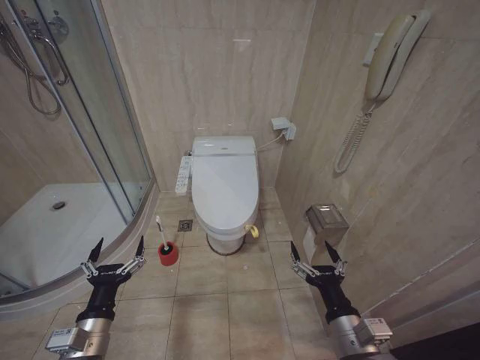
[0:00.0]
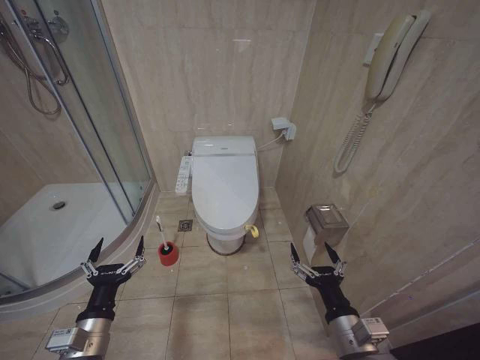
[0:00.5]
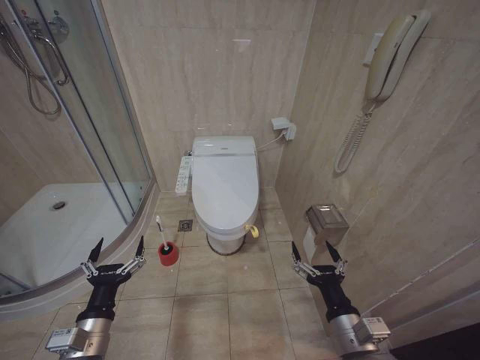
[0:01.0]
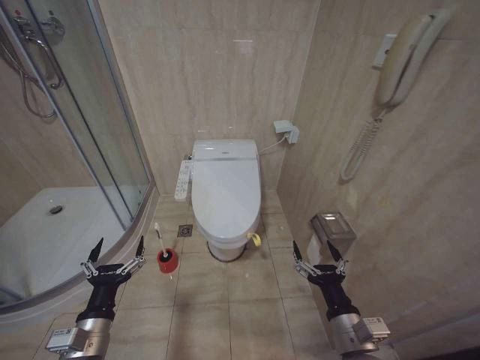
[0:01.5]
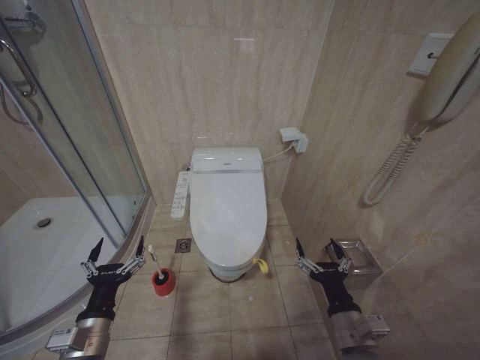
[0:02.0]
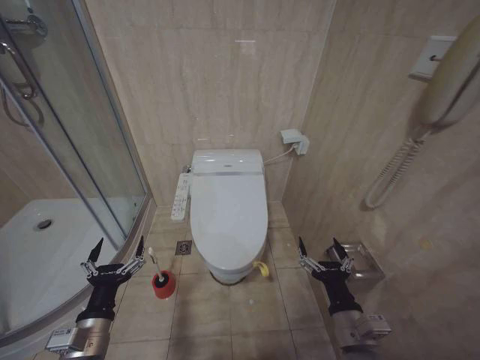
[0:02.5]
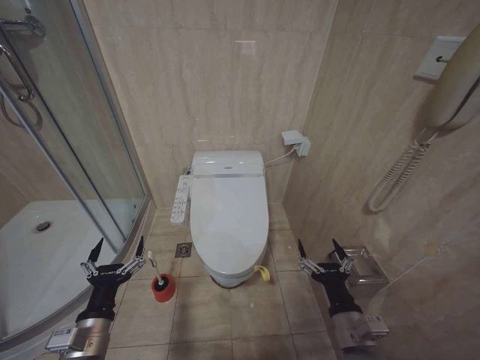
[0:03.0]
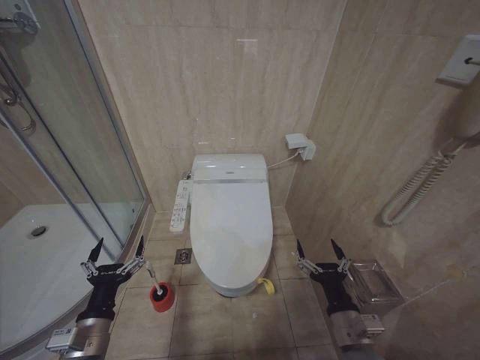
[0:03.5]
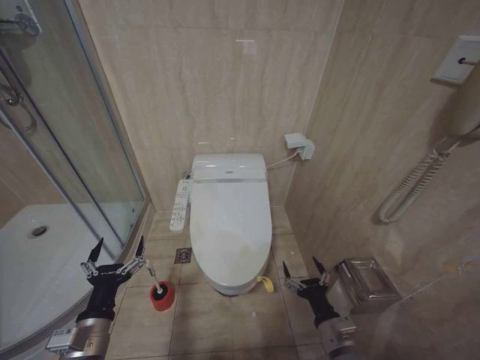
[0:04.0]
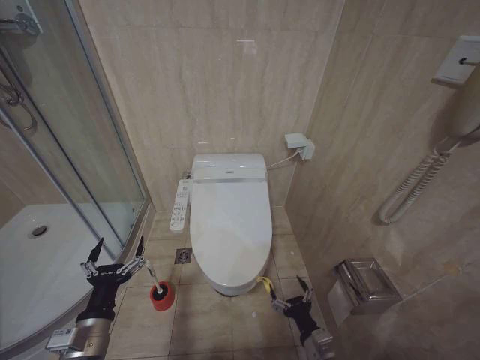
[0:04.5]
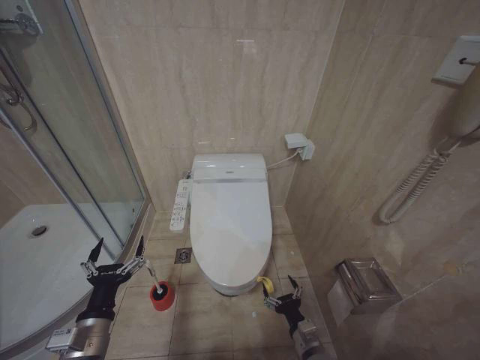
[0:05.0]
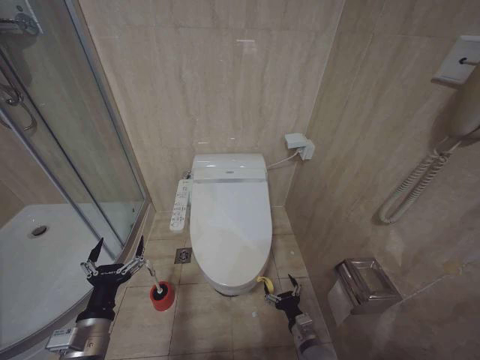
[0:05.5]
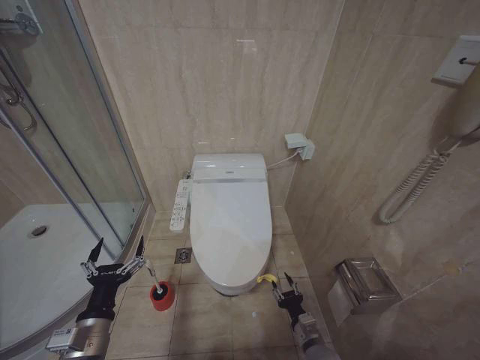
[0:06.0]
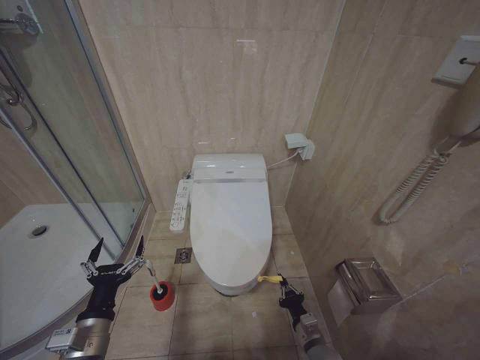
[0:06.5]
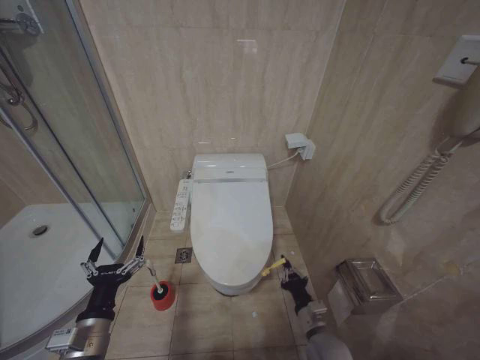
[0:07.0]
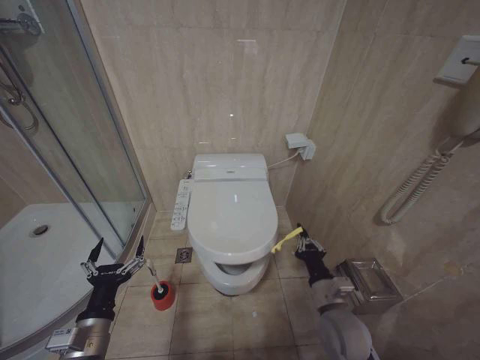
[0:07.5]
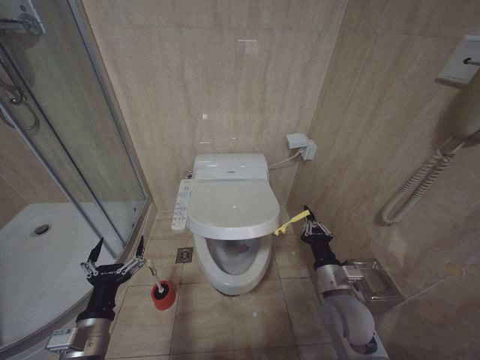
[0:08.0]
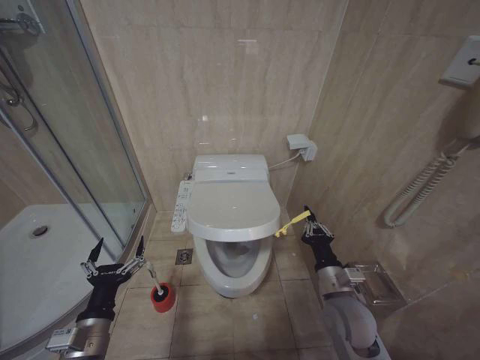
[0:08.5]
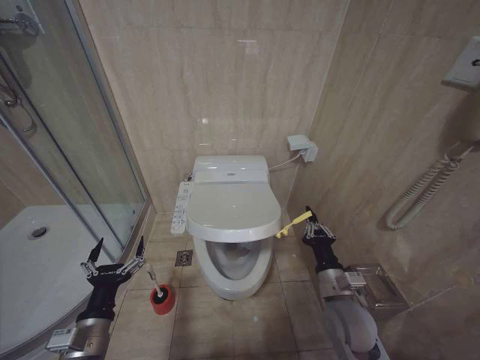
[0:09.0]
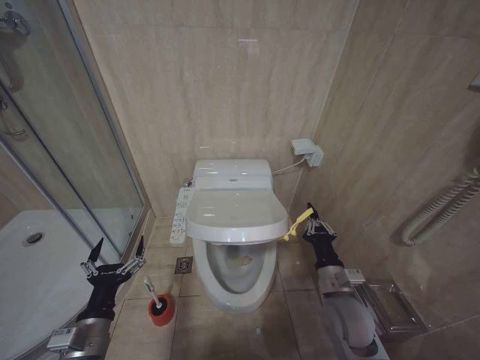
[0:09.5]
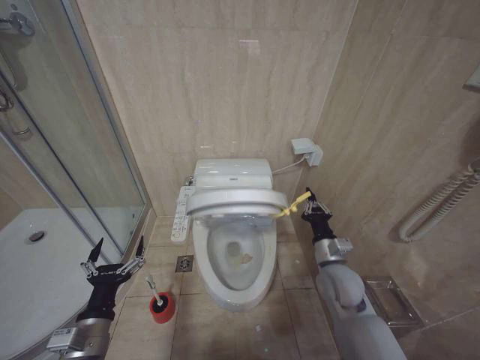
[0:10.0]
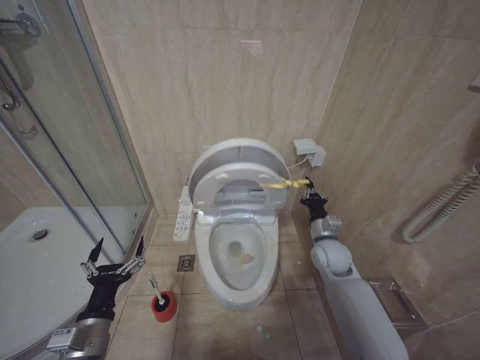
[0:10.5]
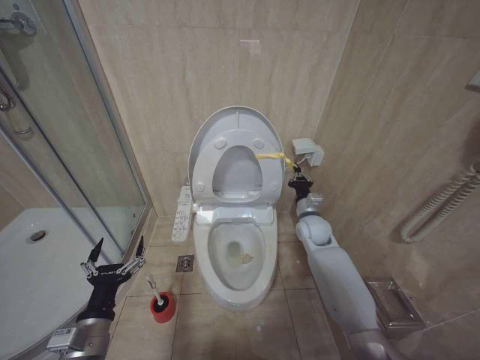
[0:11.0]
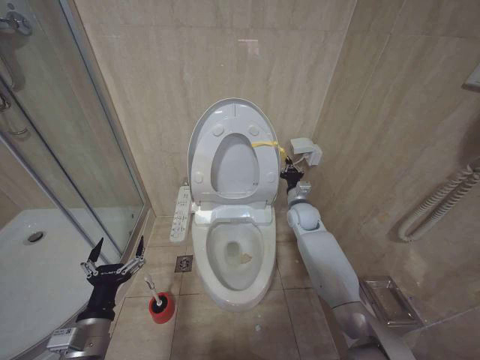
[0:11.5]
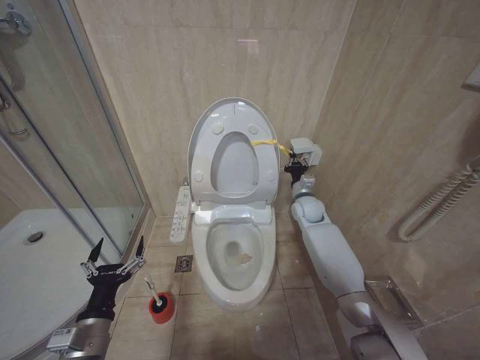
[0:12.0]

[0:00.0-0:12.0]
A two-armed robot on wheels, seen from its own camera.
Task of the whole recording: Open the toilet lid, clean the toilet bowl with a toilet brush, close the toilet lid, and flush.
2.0 to 4.0 s: The right gripper travels downward by some 5 cm.
4.0 to 6.0 s: The right gripper is displaced downward by about 15 cm.
6.0 to 8.0 s: The right gripper goes roughly 20 cm upward, and closes its fingers.
8.0 to 10.0 s: The right gripper ends up roughly 5 cm from where it was.
10.0 to 12.0 s: The right gripper travels forward by about 25 cm.

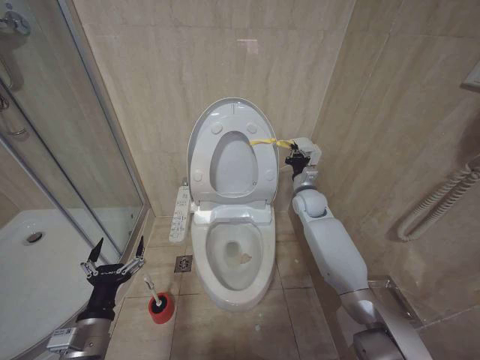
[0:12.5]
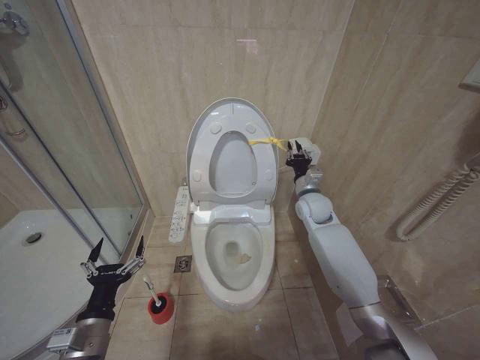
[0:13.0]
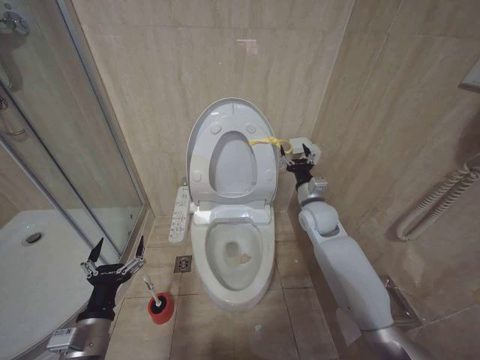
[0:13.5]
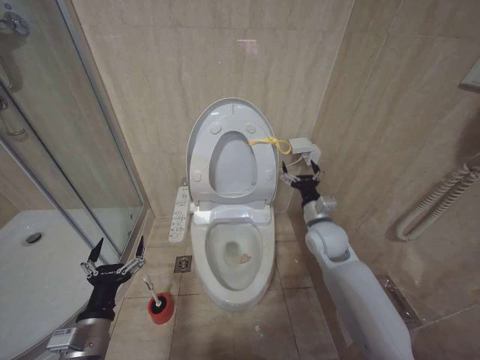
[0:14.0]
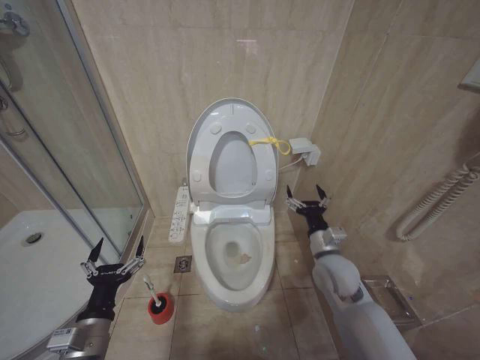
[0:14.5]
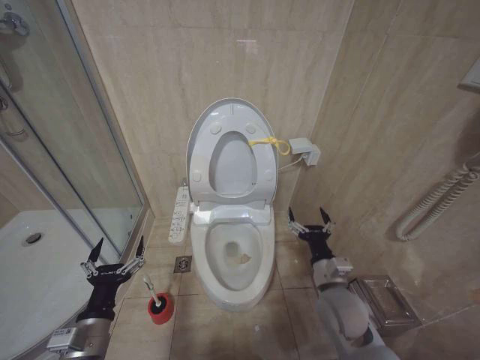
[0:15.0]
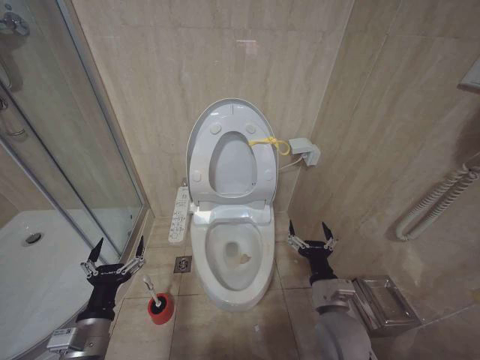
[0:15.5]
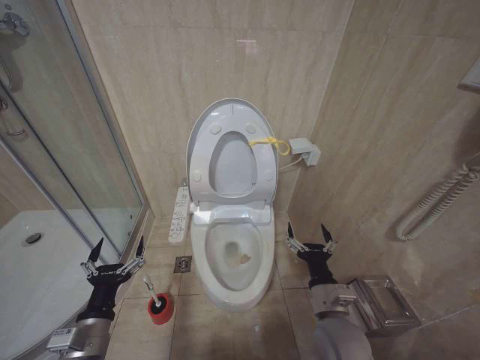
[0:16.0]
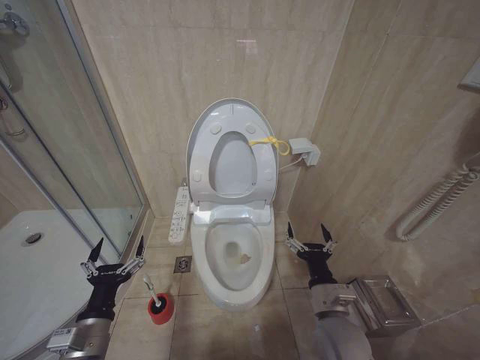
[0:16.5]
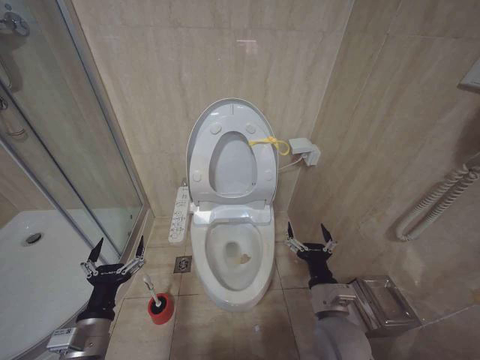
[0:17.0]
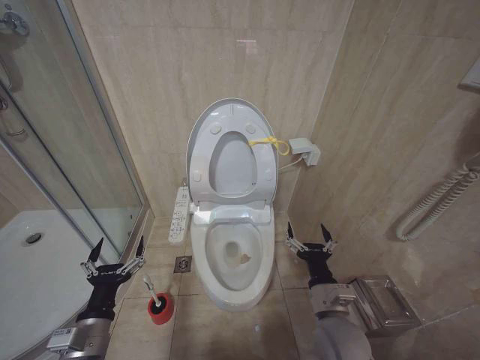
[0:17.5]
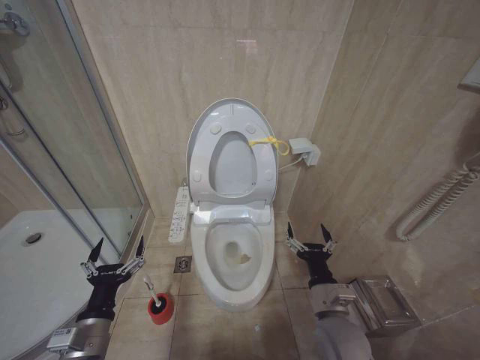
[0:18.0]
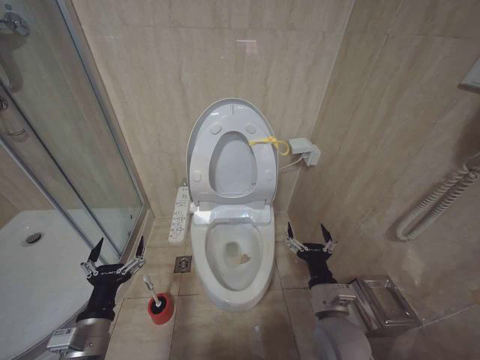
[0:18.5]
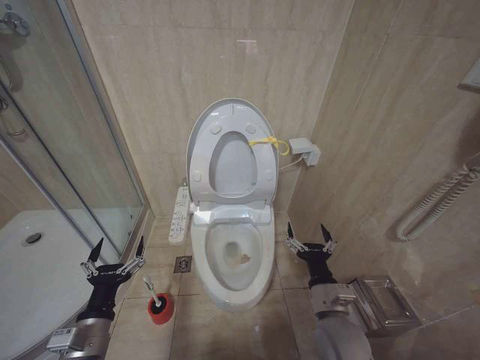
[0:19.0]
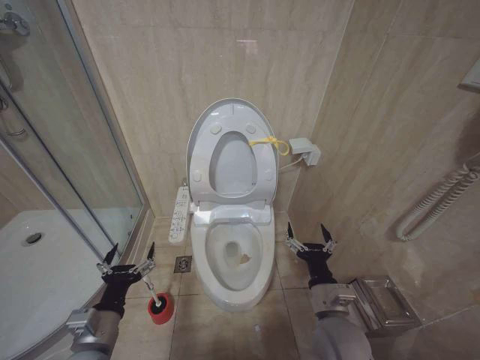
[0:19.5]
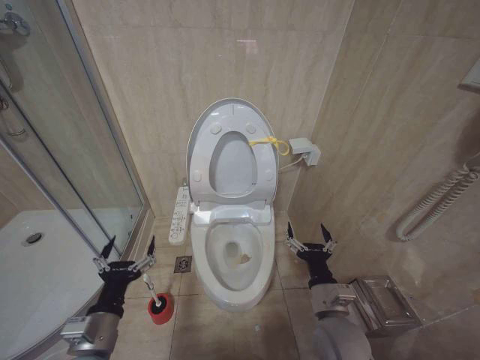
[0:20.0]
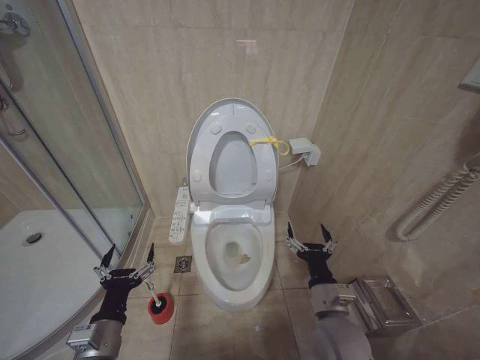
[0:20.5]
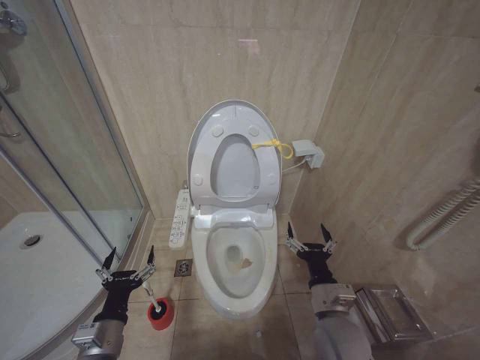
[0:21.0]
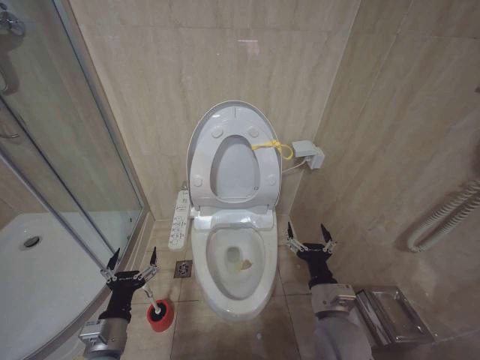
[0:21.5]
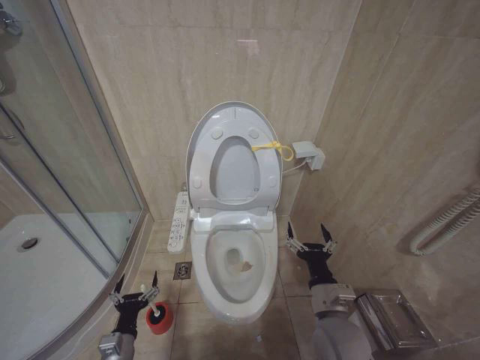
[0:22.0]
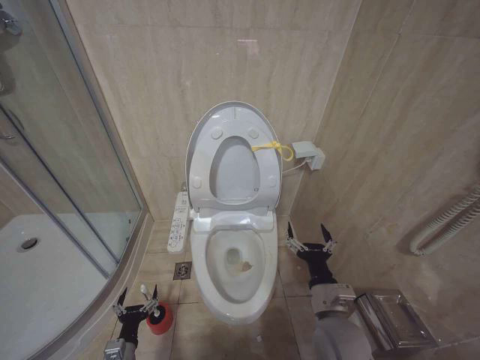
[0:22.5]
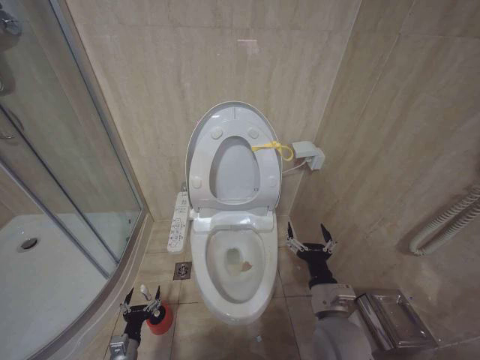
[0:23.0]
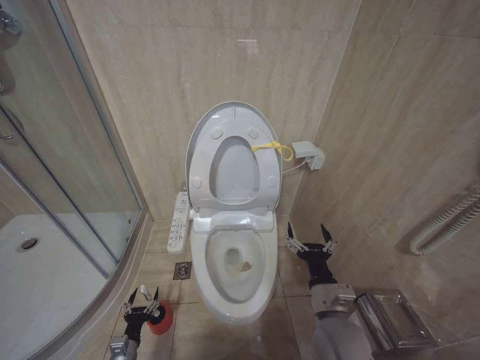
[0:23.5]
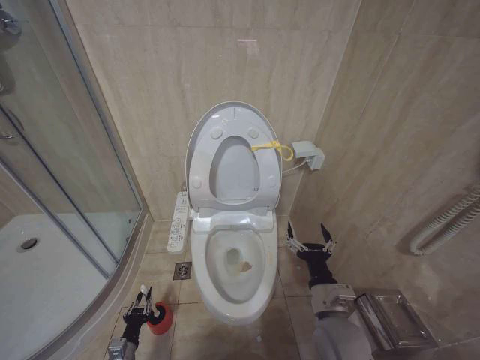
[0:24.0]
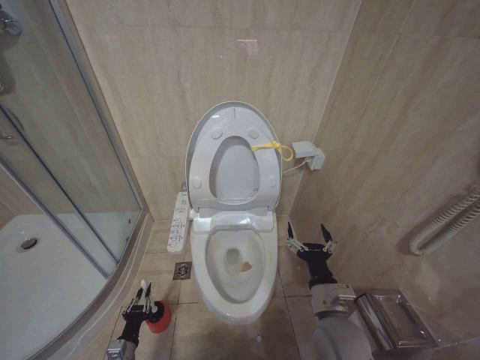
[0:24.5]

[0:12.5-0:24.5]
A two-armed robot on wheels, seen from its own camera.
Task of the whole recording: Open the toilet lid, clean the toilet bowl with a toilet brush, close the toilet lid, and flush.
12.5 to 14.5 s: The right gripper shifts about 20 cm backward, and opens.
14.5 to 16.5 s: The right gripper travels backward by about 15 cm.
16.5 to 18.5 s: Both grippers stay put.
18.5 to 20.5 s: The grippers make only small movements.
20.5 to 22.5 s: The left gripper heads downward, covering approximately 20 cm.

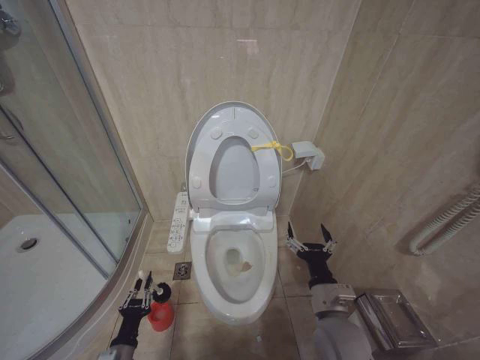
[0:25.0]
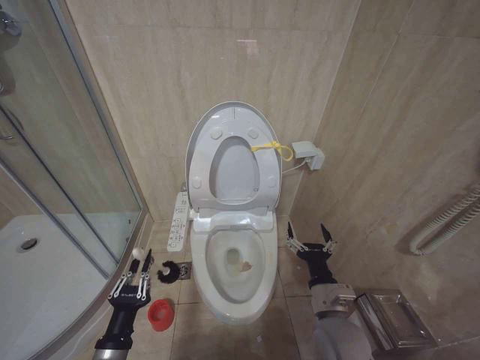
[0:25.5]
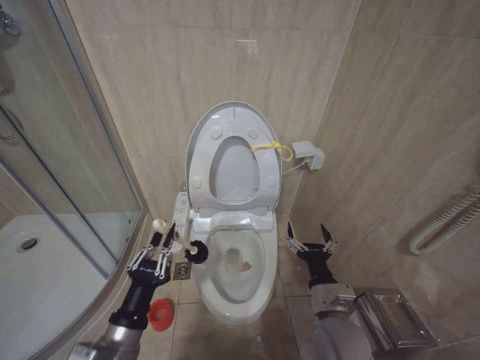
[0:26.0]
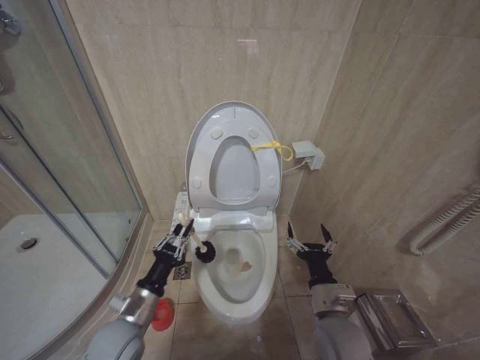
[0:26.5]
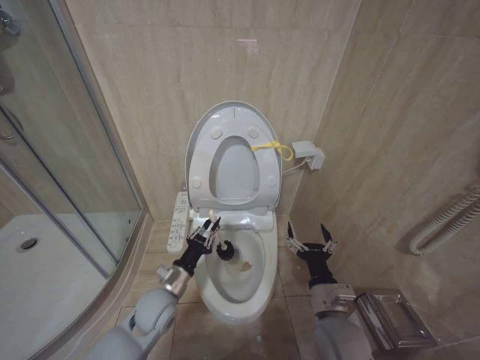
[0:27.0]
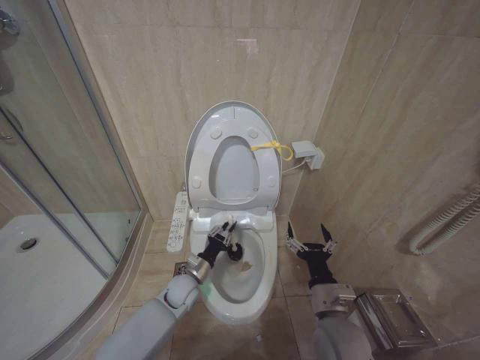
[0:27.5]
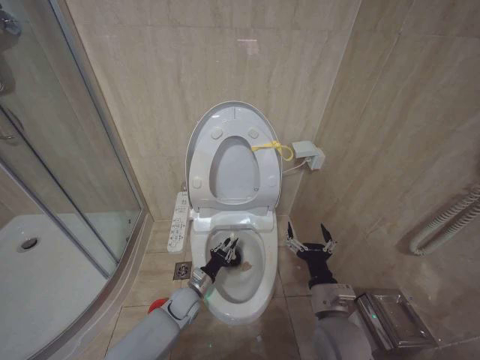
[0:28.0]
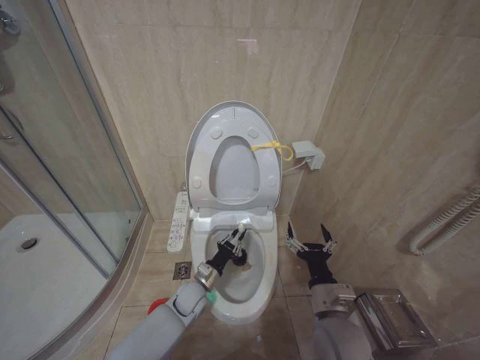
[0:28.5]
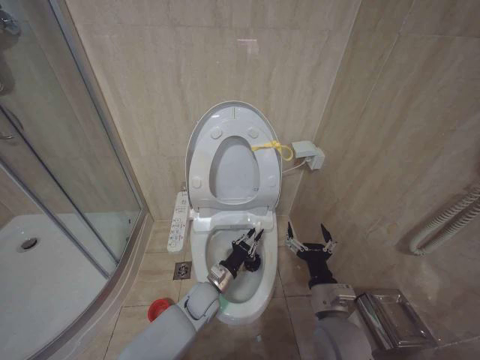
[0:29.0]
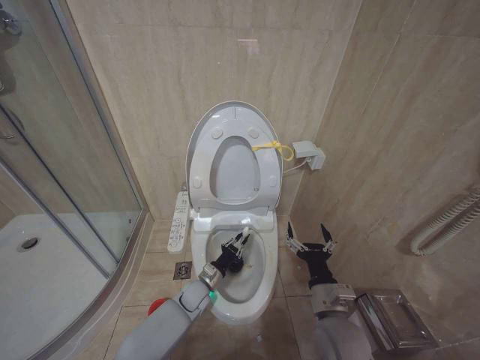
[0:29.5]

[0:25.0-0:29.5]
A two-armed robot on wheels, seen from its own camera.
Task of the whole recording: Open the toilet lid, clean the toilet bowl with a toilet brush, close the toilet lid, and flush.
25.0 to 27.0 s: The left gripper goes roughly 20 cm upward, forward and to the right.
27.0 to 29.5 s: The left gripper swings up and down, roughly 15 cm each way, with 2 reversals.
